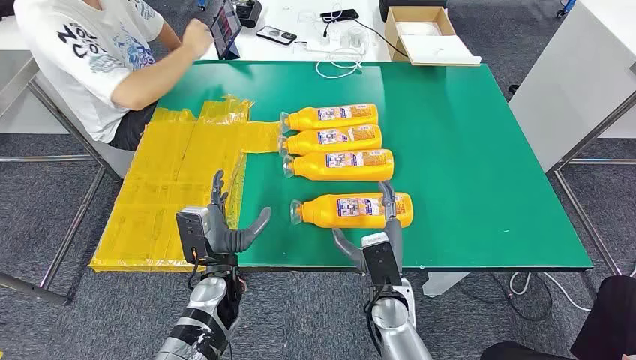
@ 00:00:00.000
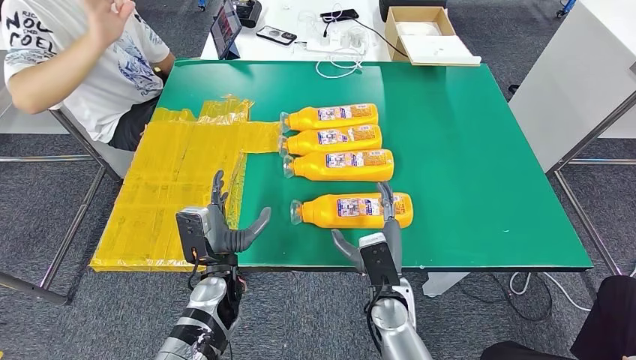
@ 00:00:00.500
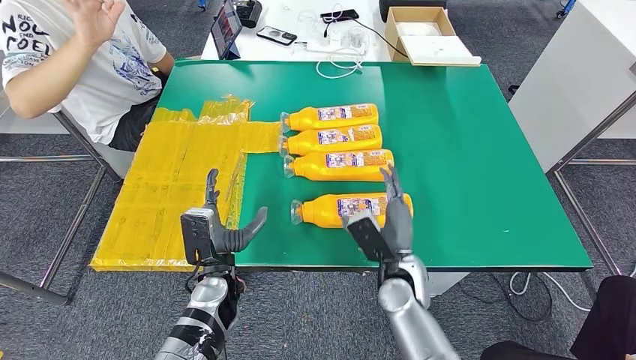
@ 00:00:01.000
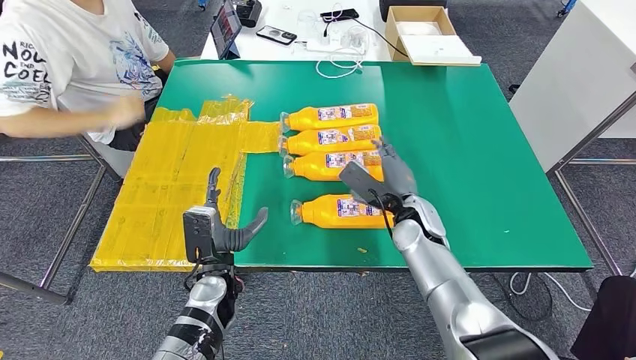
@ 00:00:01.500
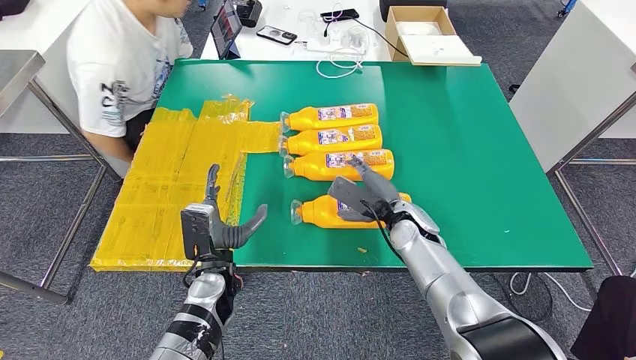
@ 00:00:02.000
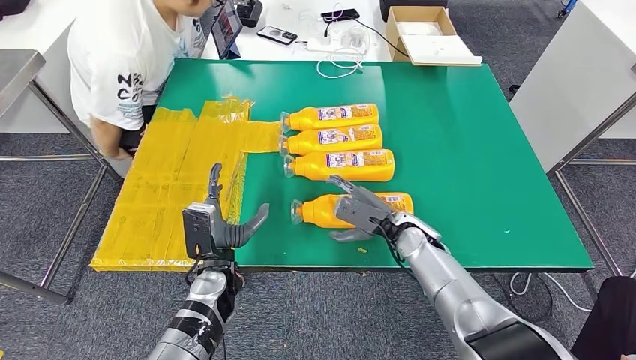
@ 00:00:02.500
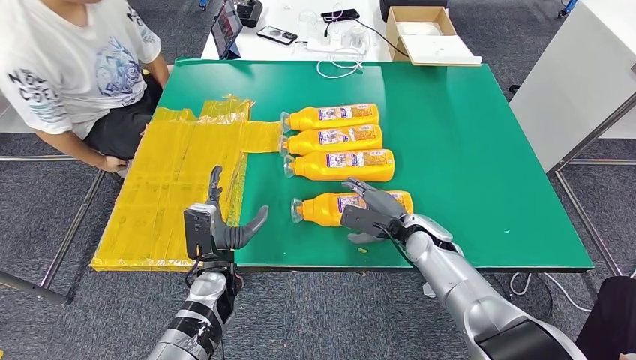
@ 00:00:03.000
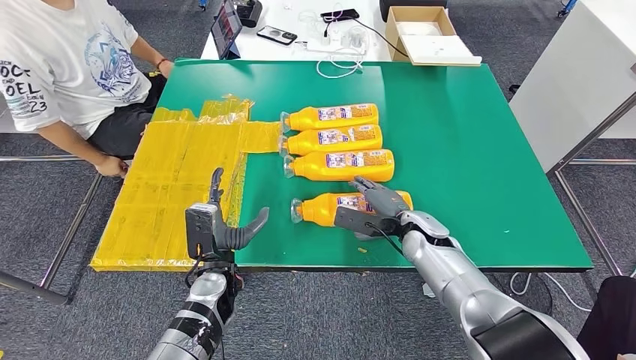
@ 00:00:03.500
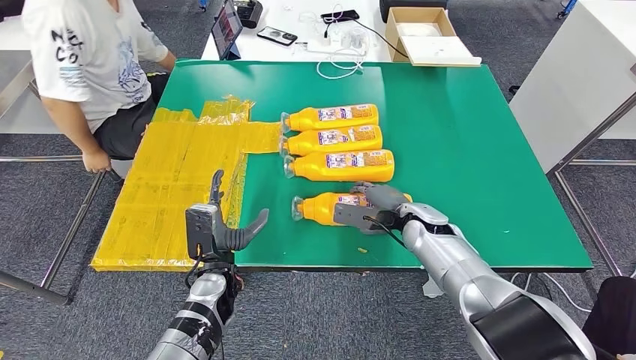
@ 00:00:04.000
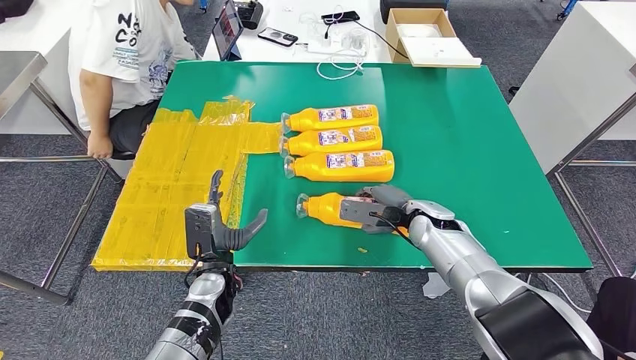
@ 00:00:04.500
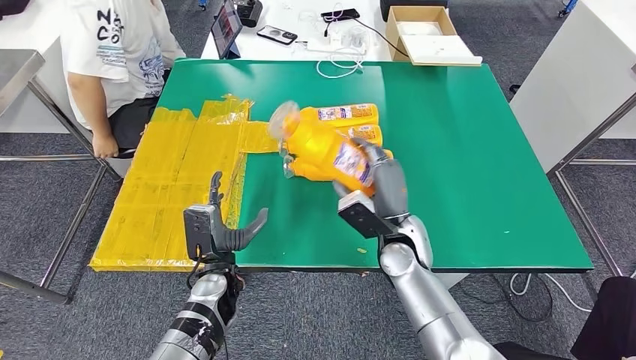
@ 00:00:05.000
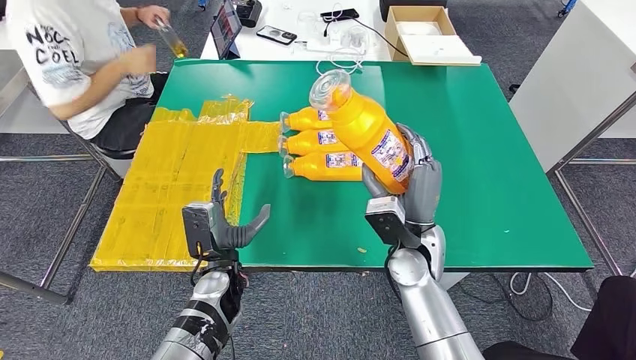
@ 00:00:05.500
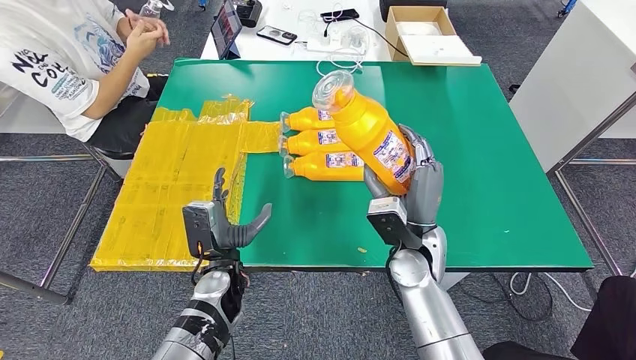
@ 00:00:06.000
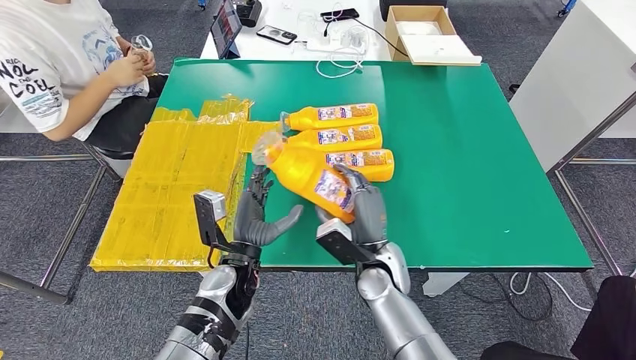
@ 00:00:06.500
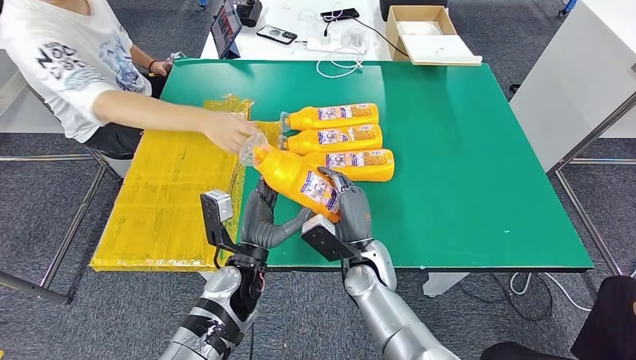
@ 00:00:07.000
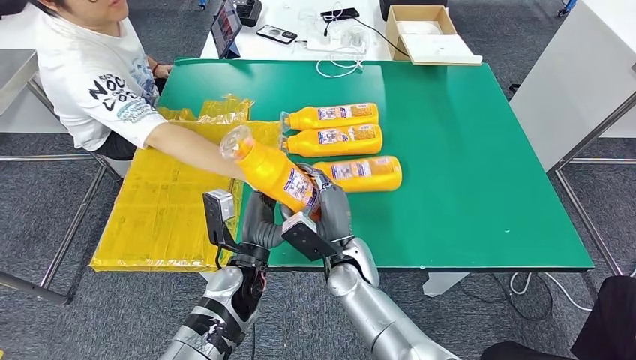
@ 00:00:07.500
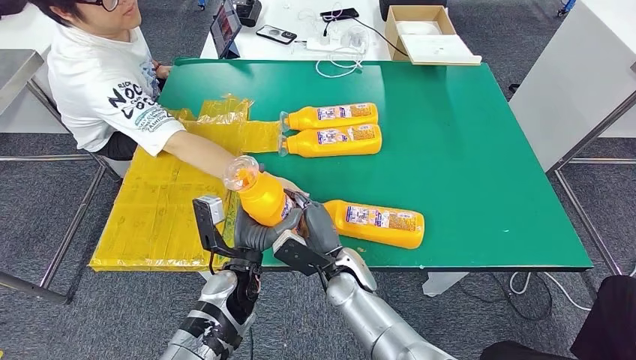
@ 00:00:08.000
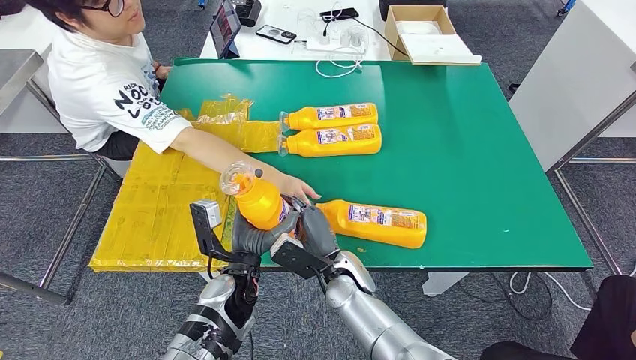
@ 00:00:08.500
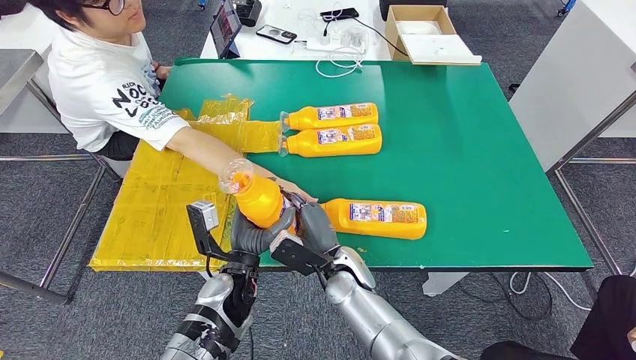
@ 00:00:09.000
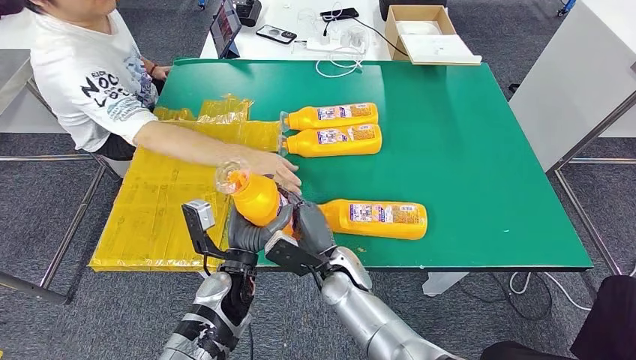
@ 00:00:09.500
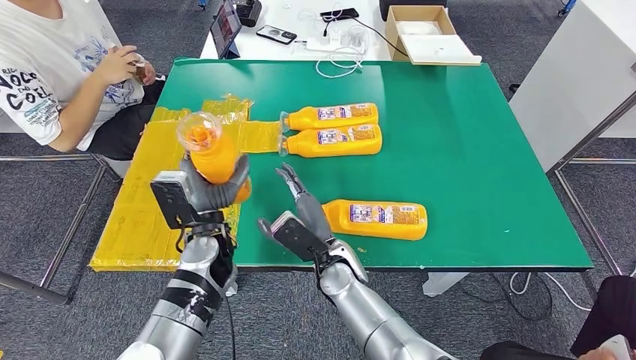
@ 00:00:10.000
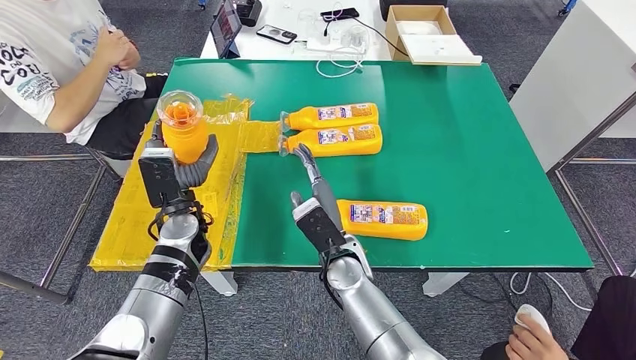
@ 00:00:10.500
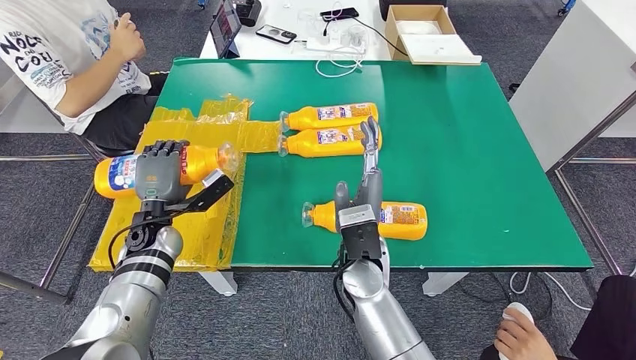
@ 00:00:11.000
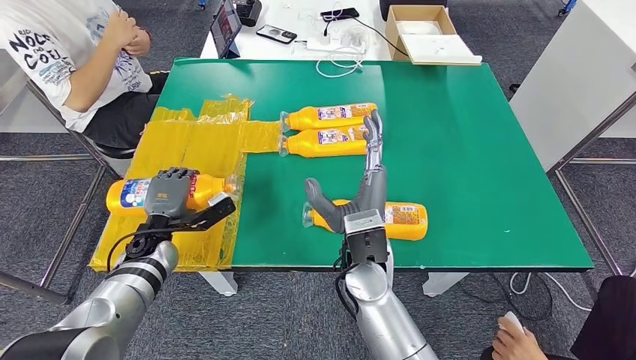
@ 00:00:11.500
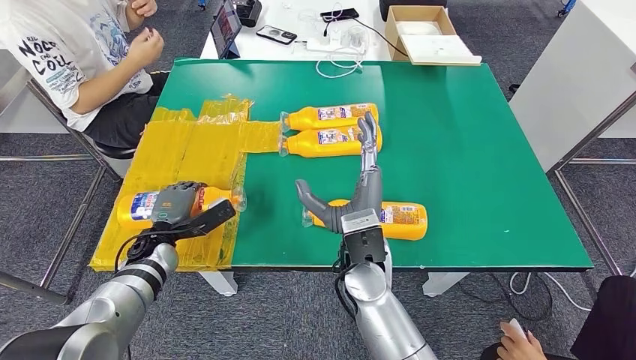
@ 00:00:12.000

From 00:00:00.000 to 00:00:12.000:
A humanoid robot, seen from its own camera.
Step, from 00:00:00.000 to 00:00:06.500: Take the fast-moving consumer goods bottle from the table.
Step, from 00:00:07.500 to 00:00:11.500: Flip the fast-moving consumer goods bottle to the front side.

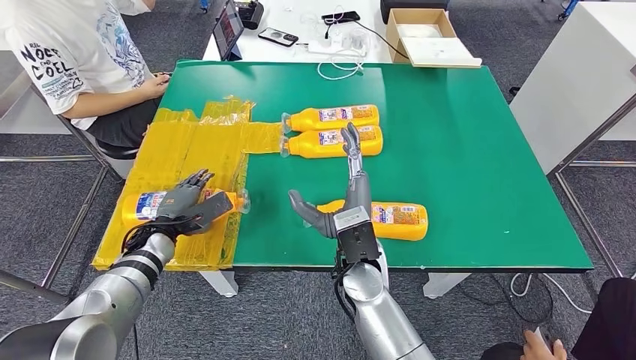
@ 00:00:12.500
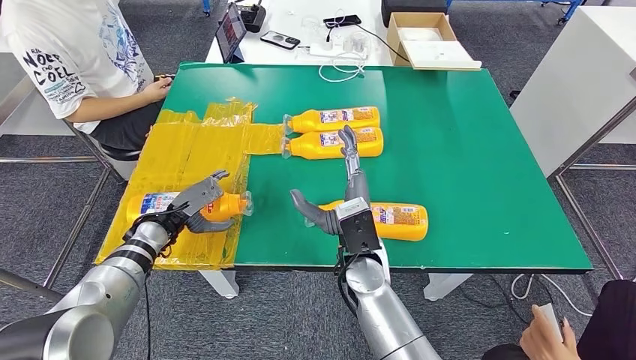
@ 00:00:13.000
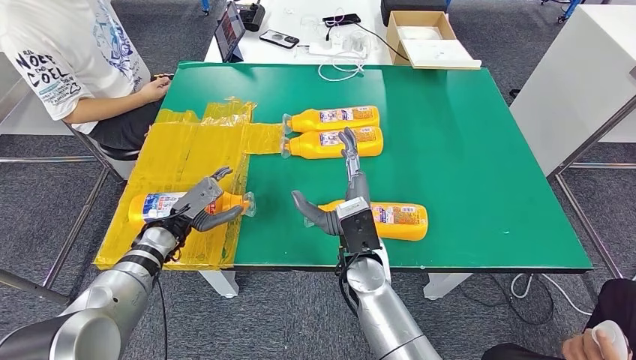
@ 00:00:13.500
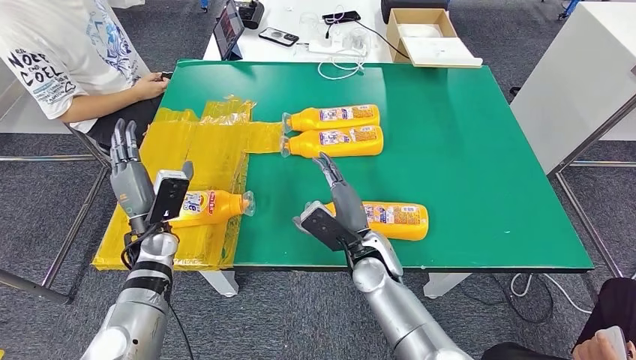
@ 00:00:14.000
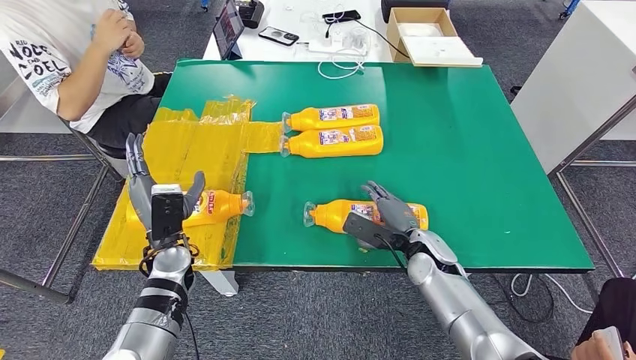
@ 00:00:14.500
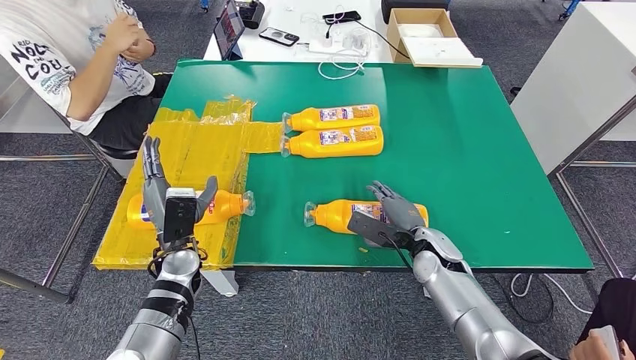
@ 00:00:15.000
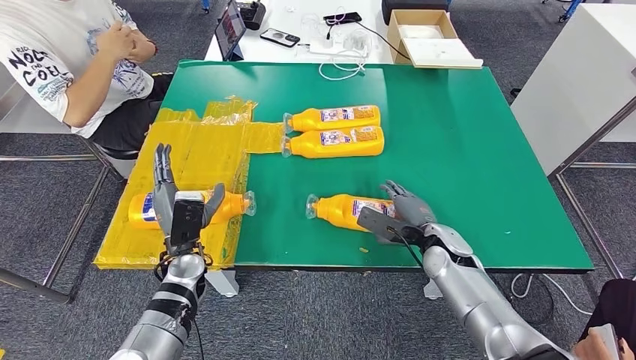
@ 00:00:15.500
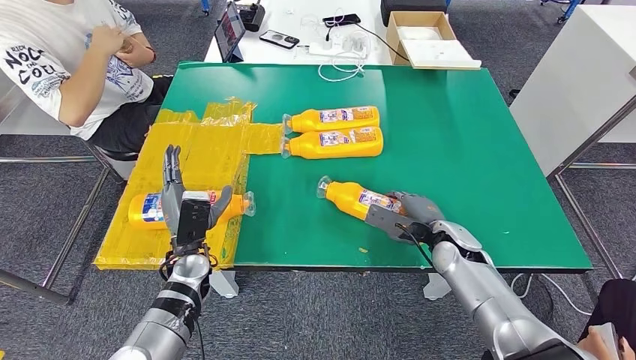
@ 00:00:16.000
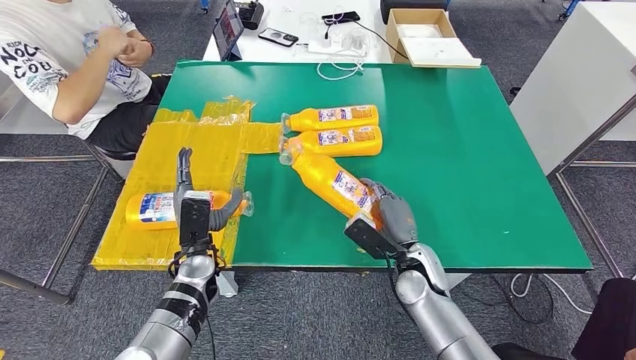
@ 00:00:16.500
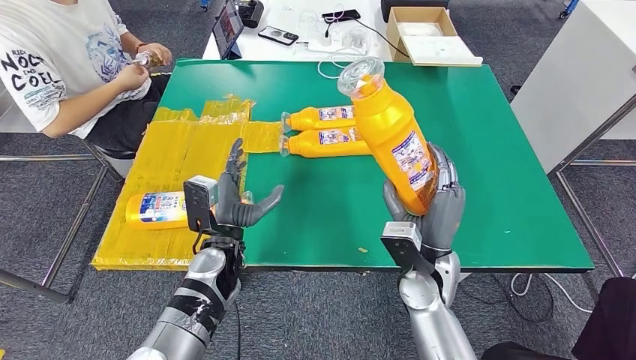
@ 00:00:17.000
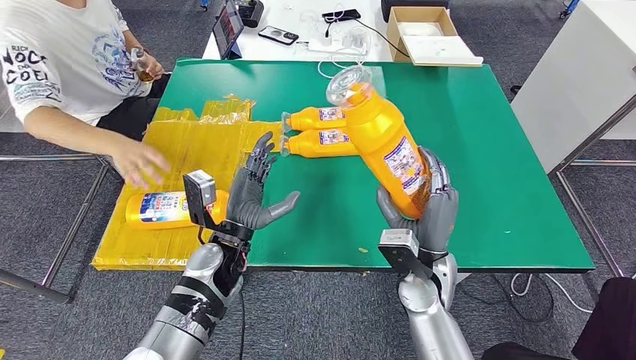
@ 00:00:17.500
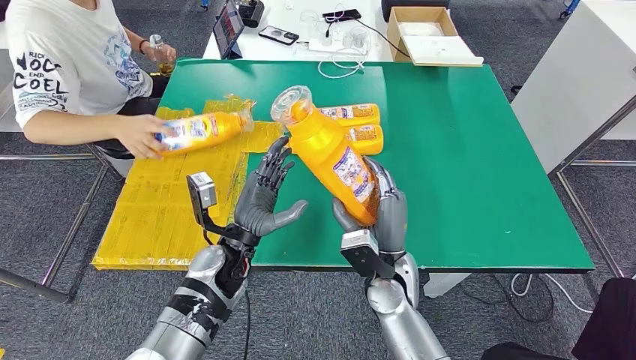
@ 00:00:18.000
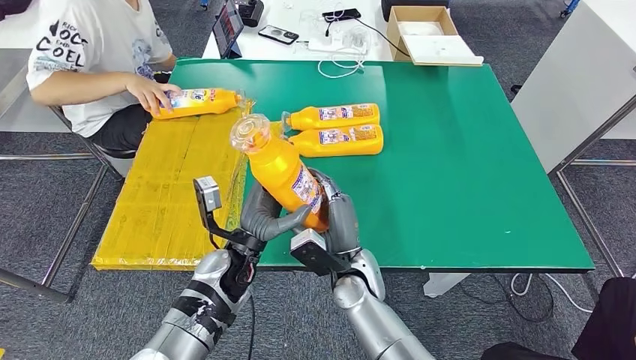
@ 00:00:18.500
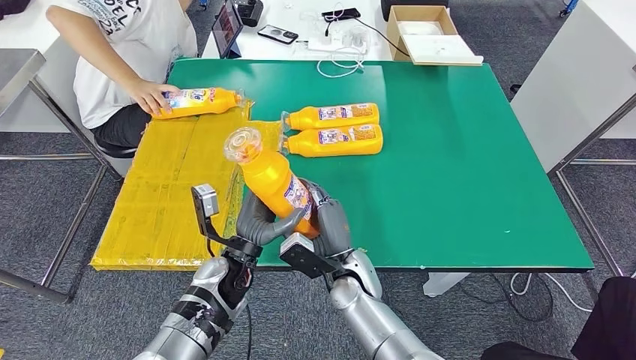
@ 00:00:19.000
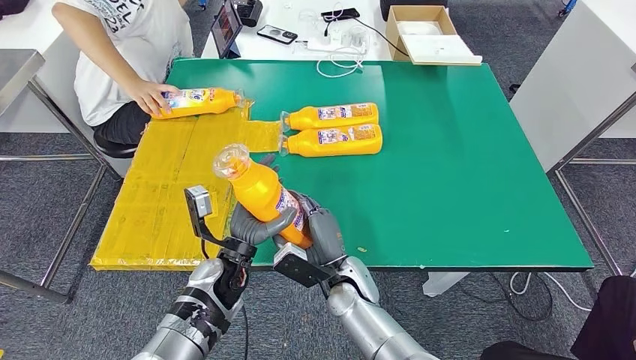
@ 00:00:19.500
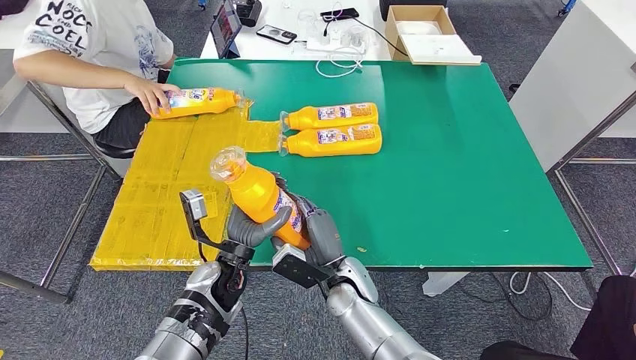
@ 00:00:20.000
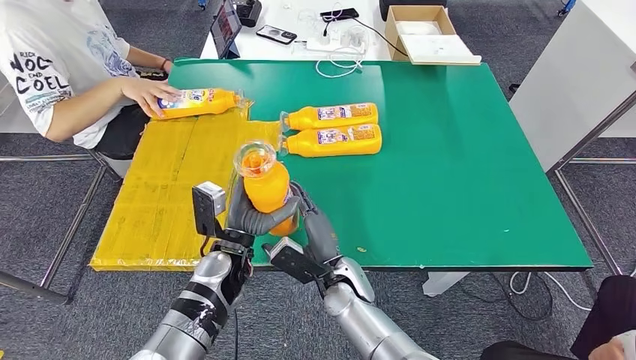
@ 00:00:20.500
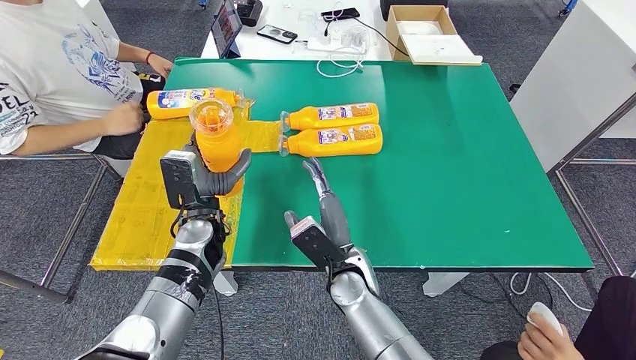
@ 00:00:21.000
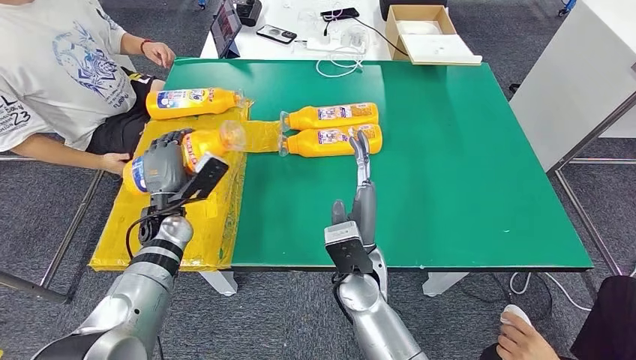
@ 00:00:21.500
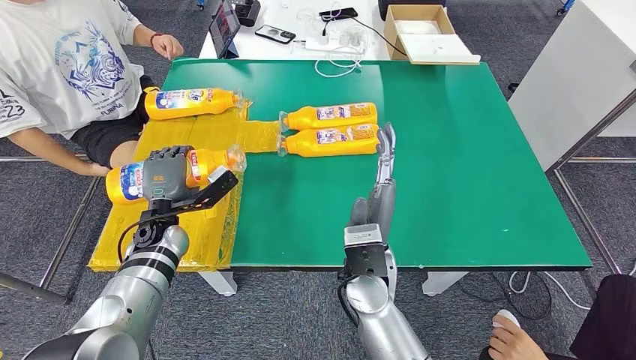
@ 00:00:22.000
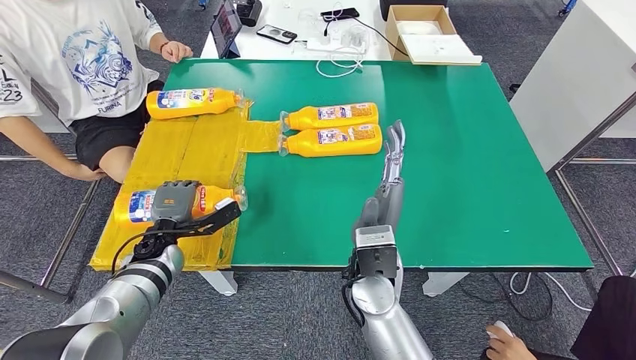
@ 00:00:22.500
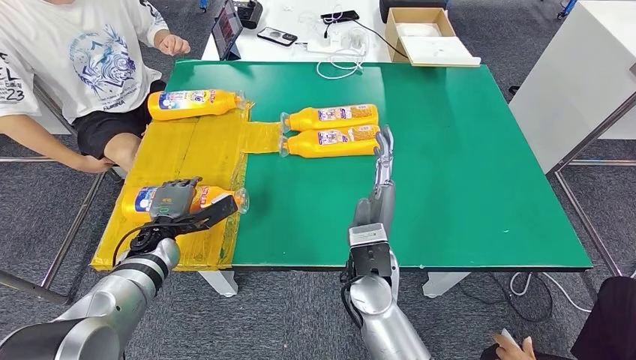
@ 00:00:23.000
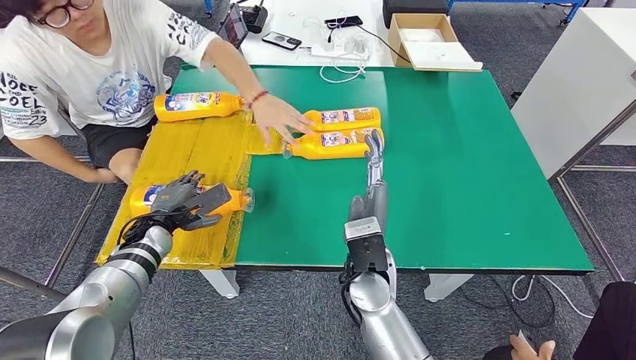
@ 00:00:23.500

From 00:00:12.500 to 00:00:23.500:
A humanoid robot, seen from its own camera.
Step, from 00:00:12.500 to 00:00:16.500: Pick up the fast-moving consumer goods bottle from the table.
Step, from 00:00:17.000 to 00:00:22.500: Flip the fast-moving consumer goods bottle to the front side.
